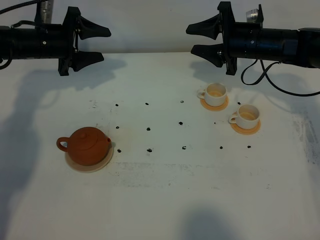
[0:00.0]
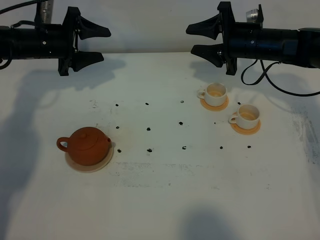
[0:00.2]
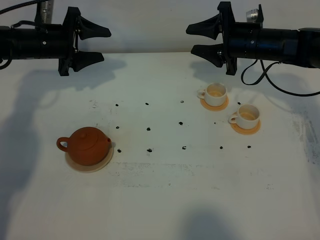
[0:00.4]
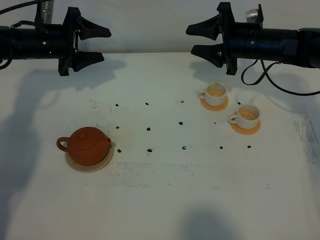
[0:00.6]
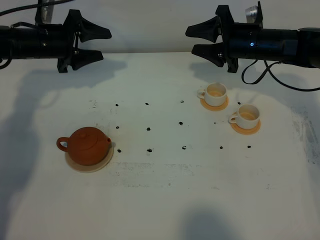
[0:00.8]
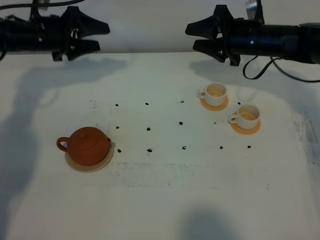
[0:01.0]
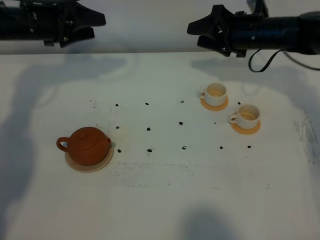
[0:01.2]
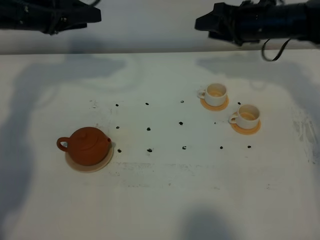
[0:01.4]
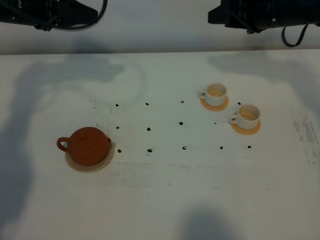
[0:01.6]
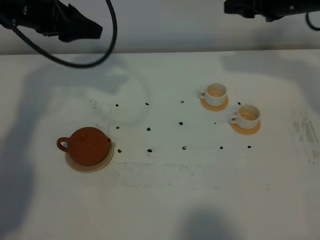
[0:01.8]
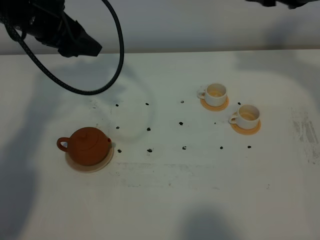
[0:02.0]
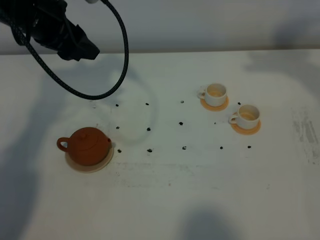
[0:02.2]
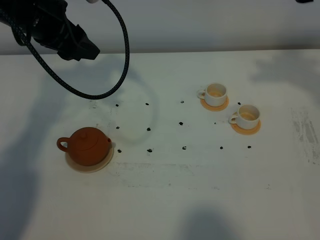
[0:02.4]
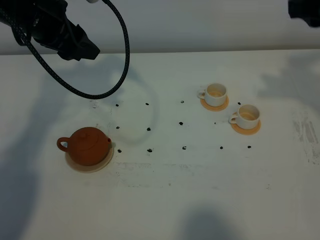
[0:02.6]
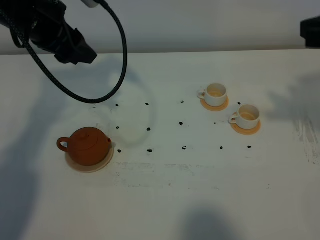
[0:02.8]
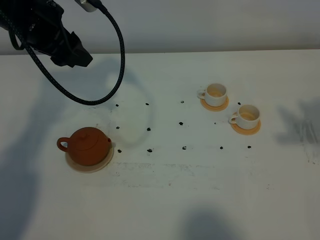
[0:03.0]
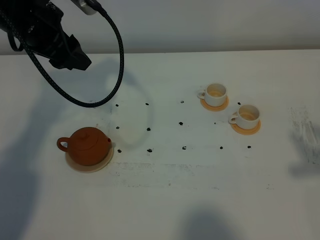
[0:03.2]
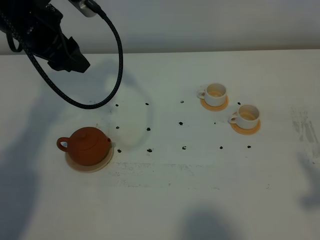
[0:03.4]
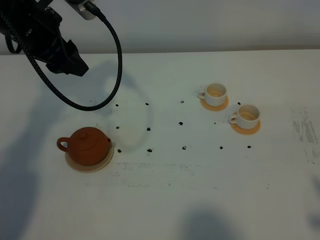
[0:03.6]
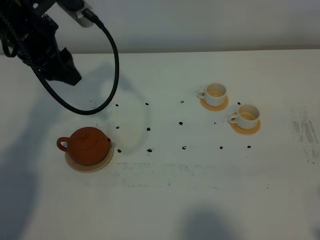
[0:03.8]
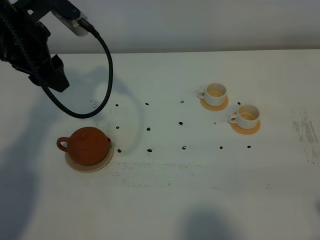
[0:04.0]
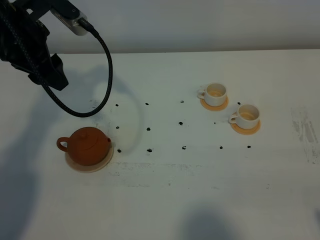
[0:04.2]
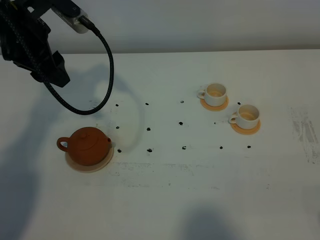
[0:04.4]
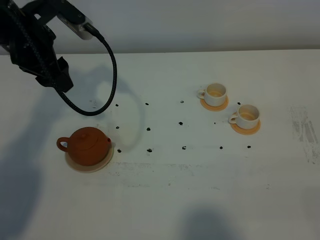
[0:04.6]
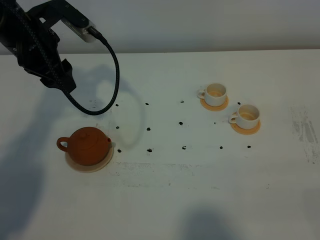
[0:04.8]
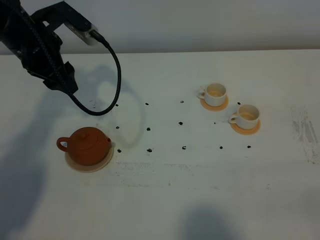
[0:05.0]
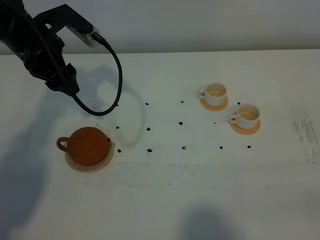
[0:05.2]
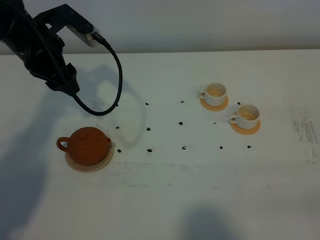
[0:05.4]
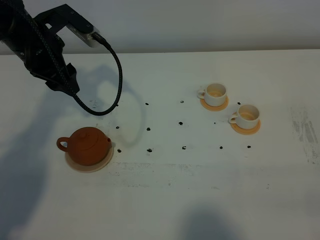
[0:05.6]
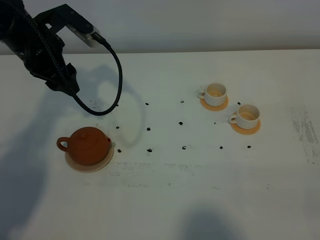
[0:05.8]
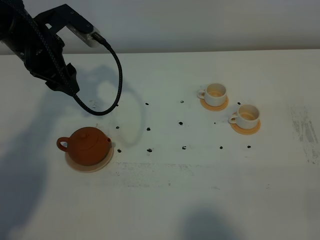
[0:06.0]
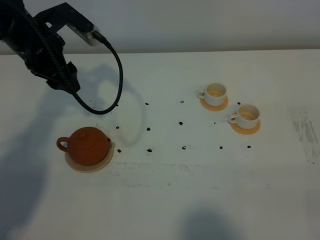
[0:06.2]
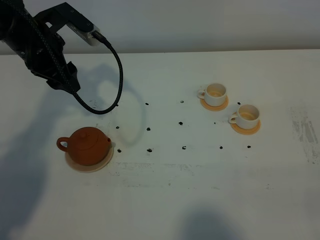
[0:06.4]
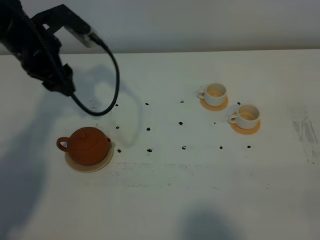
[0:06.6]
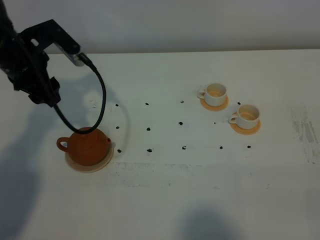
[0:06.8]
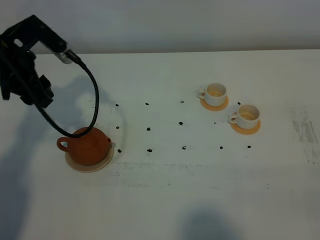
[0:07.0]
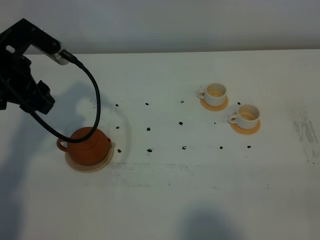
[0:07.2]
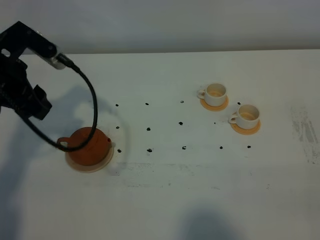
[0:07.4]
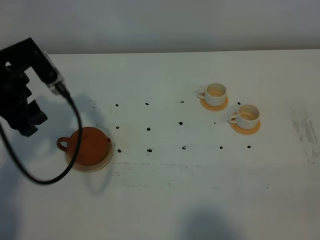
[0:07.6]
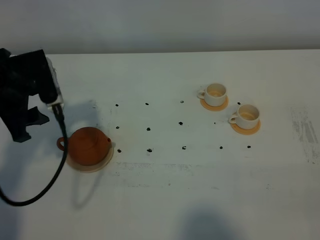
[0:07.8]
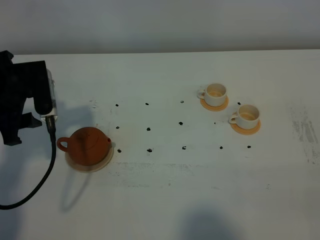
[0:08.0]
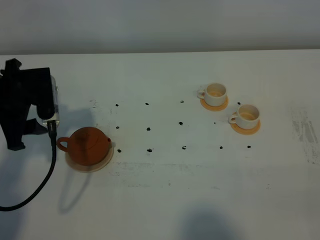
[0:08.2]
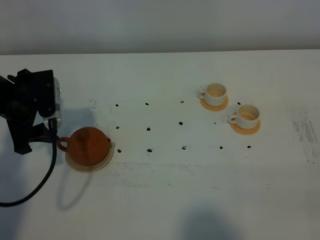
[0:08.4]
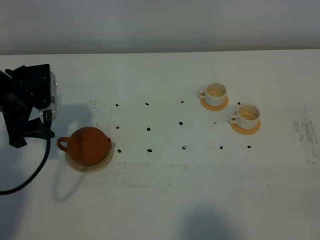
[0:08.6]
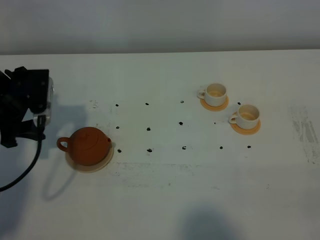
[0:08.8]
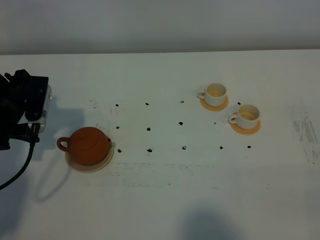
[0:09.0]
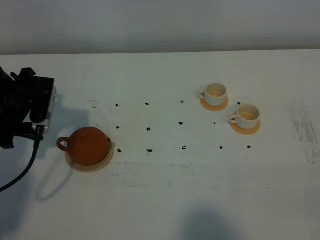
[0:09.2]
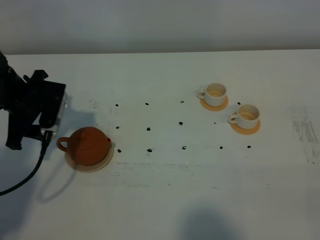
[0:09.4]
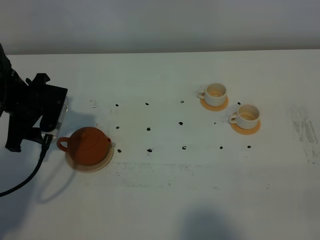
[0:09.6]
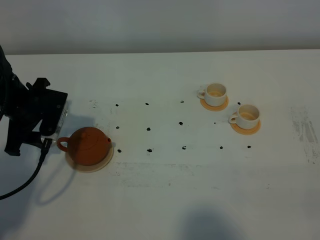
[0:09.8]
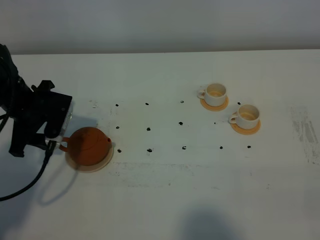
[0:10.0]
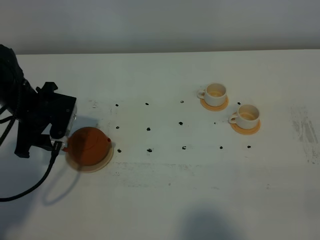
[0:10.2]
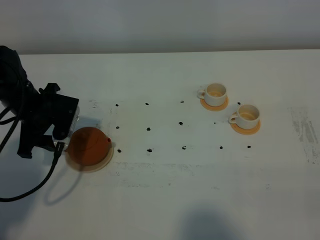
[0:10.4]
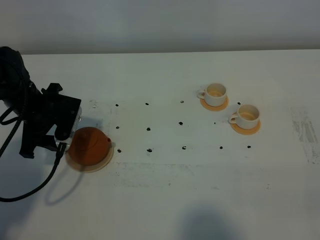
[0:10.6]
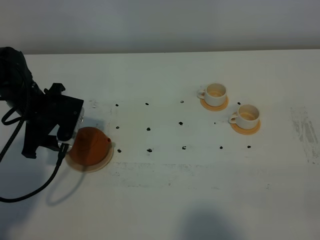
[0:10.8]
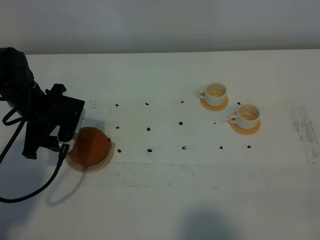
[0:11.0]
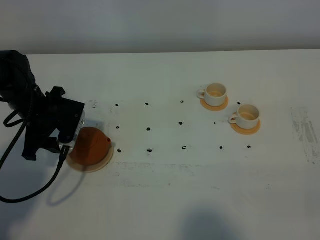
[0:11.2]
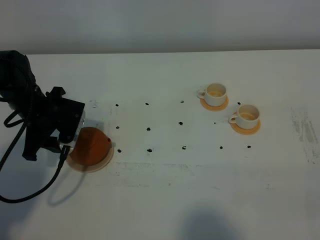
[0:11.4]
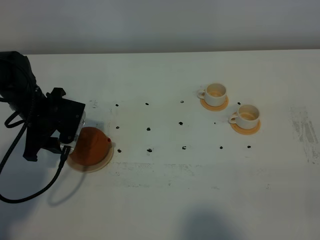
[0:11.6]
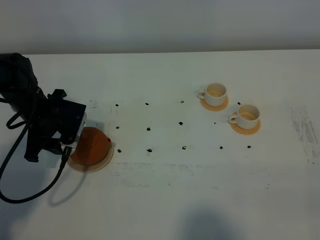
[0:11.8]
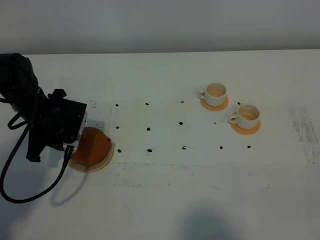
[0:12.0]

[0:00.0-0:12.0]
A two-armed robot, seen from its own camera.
Task of the whole recording: grasp the brown teapot and pour the tea into the two white teacups one by one, put the brown teapot back in its original place.
0:00.0 to 0:01.6: The left gripper is displaced upward and backward by approximately 15 cm; the right gripper is displaced upward by roughly 10 cm.
0:01.6 to 0:03.0: The left gripper moves roughly 5 cm. The right gripper moves backward and upward, roughly 30 cm.
0:03.0 to 0:04.4: The right gripper shifts about 20 cm backward and downward.
0:04.4 to 0:06.0: The left gripper moves about 5 cm.
0:06.0 to 0:07.6: The left gripper goes about 10 cm backward.
0:07.6 to 0:09.0: The left gripper is displaced downward by approximately 5 cm.
0:09.0 to 0:10.4: The left gripper shifts by approximately 5 cm.
0:10.4 to 0:12.0: The left gripper closes up.

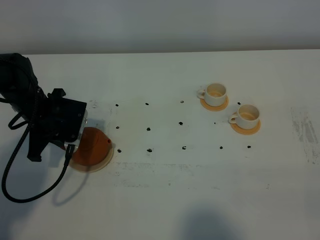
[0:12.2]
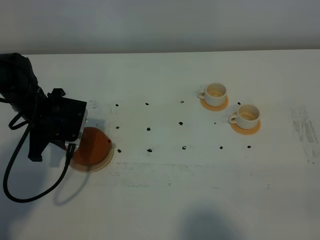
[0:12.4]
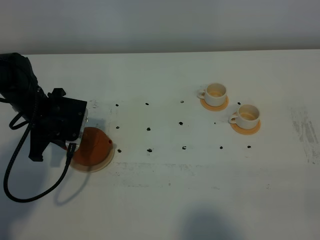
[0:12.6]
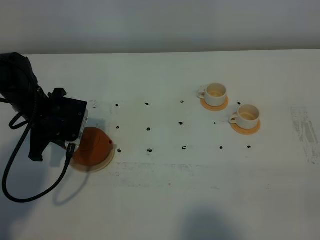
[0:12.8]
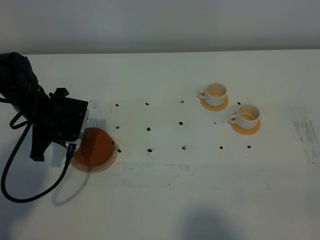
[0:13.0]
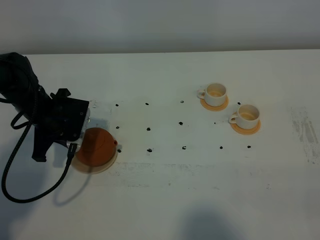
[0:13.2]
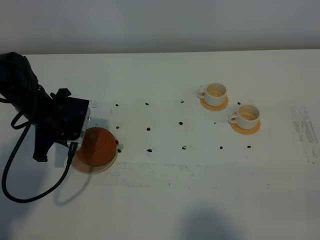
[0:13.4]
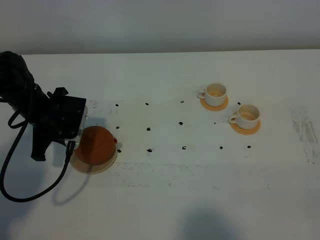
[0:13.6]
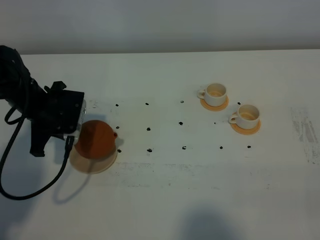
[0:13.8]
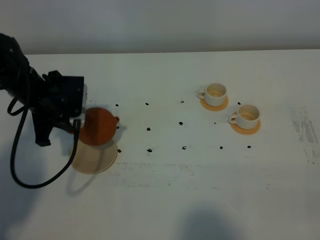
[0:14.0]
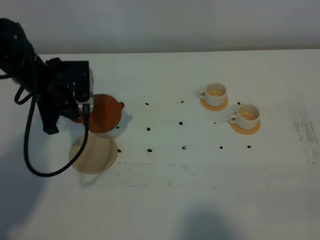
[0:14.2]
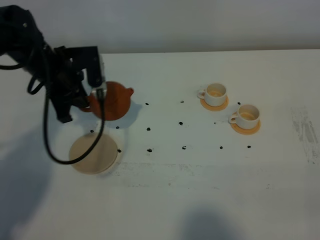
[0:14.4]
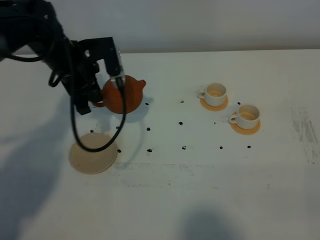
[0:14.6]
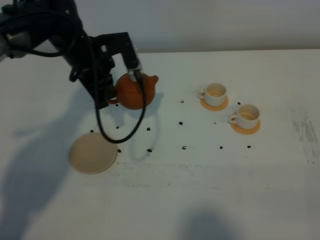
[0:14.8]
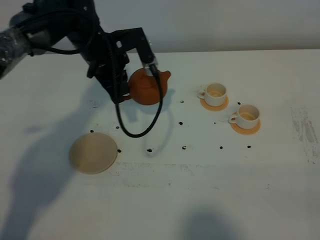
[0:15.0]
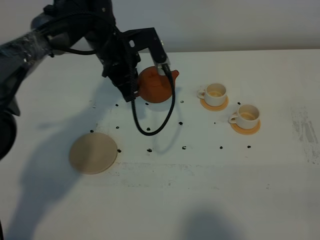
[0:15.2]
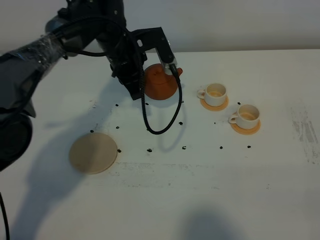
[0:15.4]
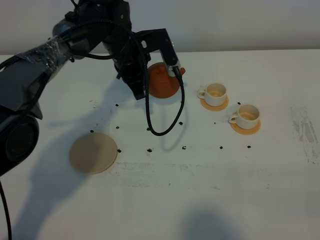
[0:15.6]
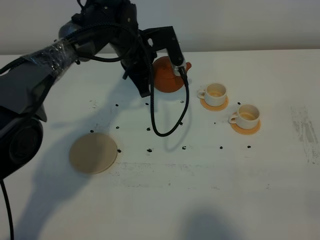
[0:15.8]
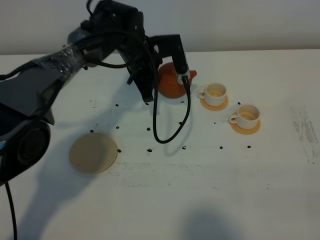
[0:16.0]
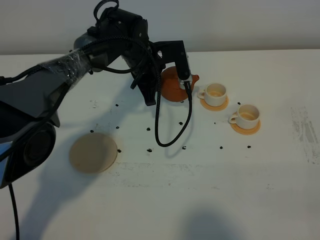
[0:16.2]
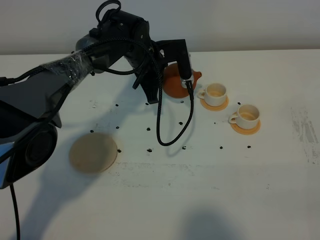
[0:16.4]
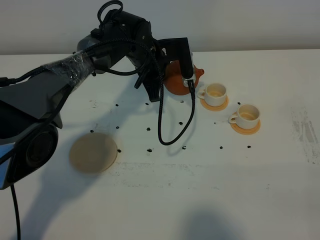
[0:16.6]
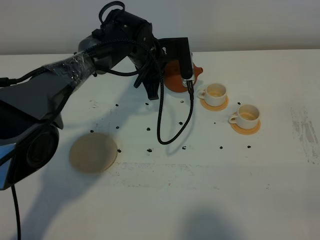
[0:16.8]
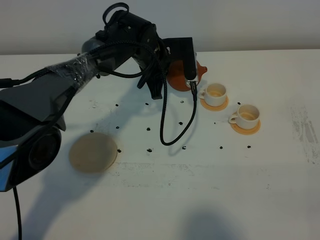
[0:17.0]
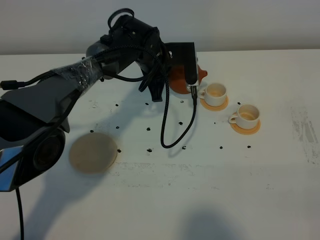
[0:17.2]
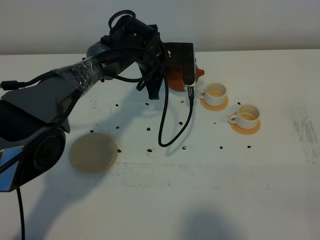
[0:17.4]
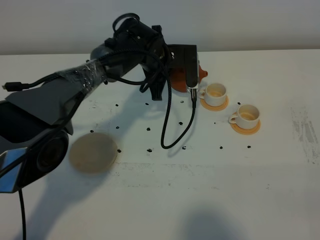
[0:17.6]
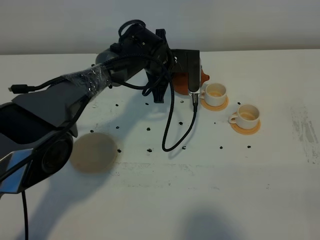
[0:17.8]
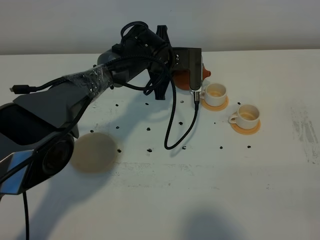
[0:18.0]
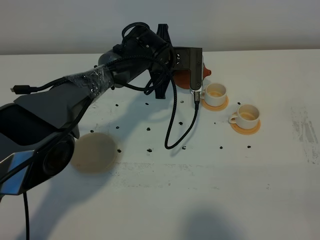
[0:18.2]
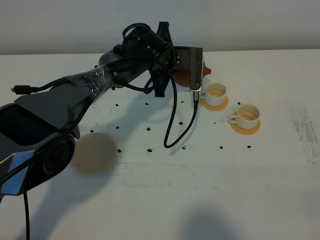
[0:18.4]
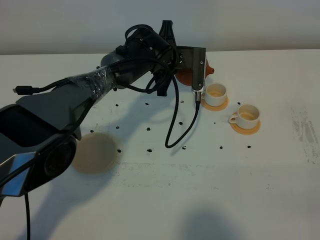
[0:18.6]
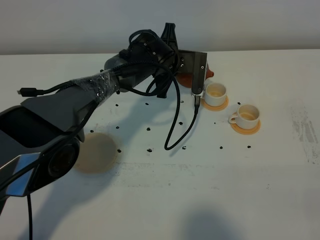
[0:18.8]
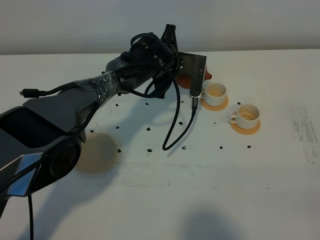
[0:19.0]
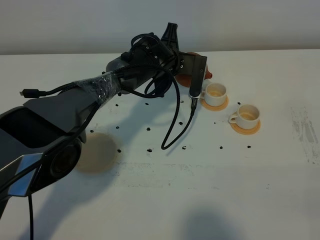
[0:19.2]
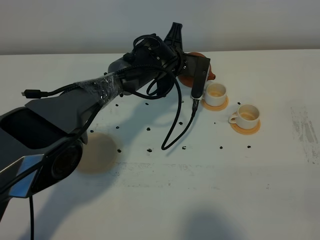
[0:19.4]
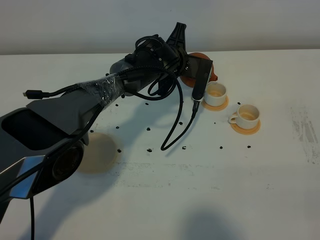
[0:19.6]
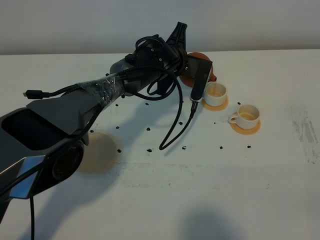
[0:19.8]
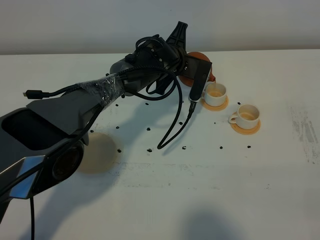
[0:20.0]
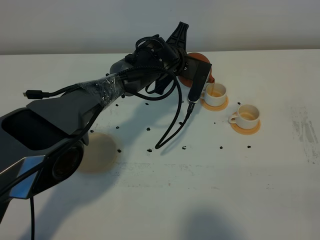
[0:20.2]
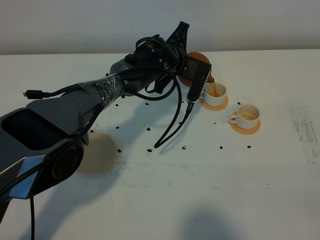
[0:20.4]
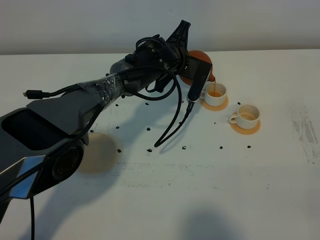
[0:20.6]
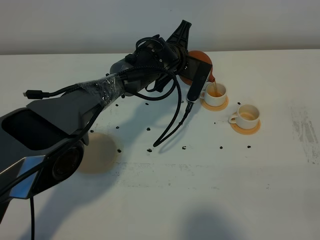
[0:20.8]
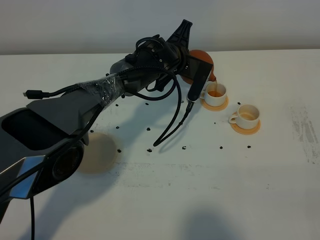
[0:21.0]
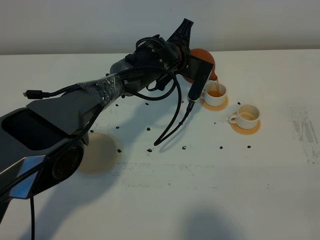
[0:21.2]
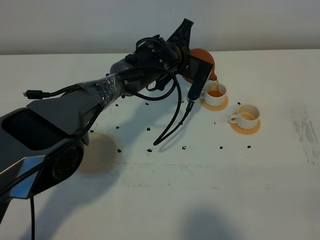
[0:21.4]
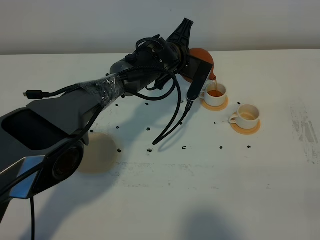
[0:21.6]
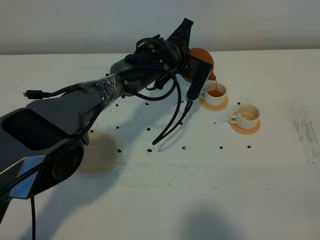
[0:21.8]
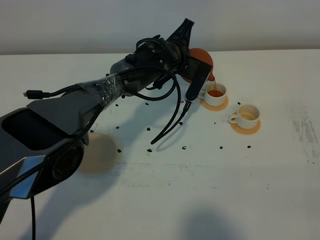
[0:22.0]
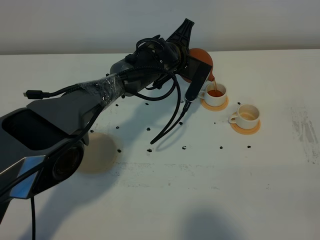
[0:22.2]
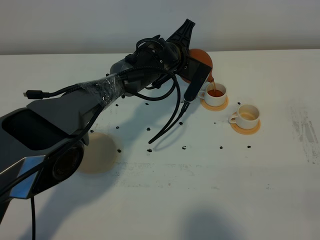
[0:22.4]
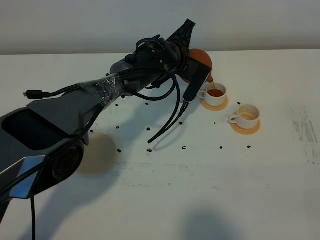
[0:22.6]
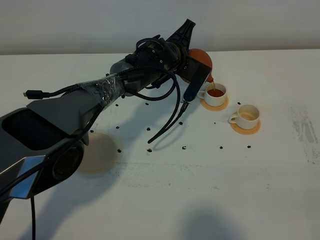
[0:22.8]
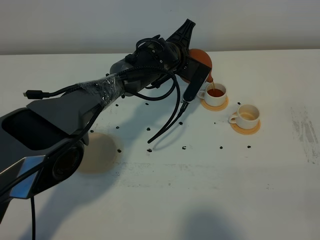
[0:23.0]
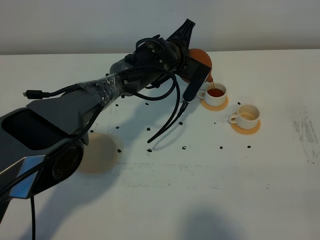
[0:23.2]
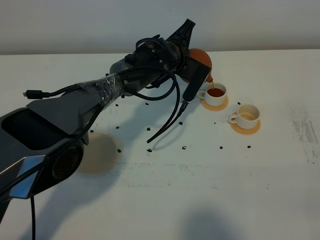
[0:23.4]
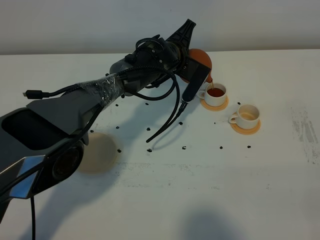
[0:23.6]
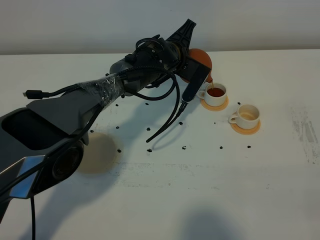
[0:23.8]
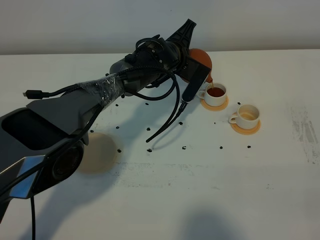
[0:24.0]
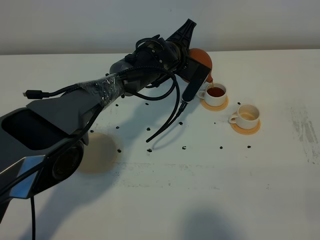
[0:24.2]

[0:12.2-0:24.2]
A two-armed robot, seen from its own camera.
Task of the whole recording: grasp the brown teapot and pour the tea into the two white teacups one by one, put the brown teapot back in its original place.
0:12.2 to 0:13.8: The grippers stay close to where they were, moving slightly.
0:13.8 to 0:15.2: The left gripper goes roughly 15 cm to the right and forward.
0:15.2 to 0:16.6: The left gripper goes roughly 5 cm to the right.
0:16.6 to 0:18.2: The grippers move only a little.
0:18.2 to 0:19.8: The grippers stay close to where they were, moving slightly.
0:19.8 to 0:22.6: The grippers move only a little.
0:22.6 to 0:24.2: Both grippers stay about where they are.
